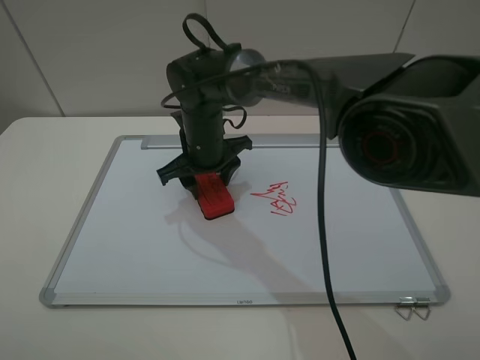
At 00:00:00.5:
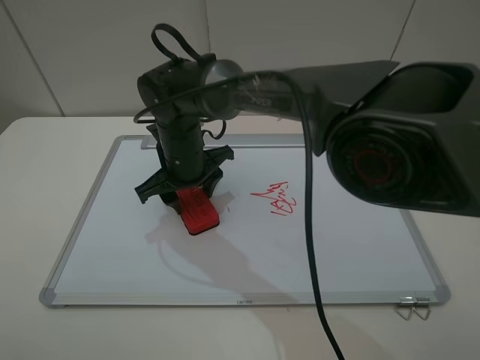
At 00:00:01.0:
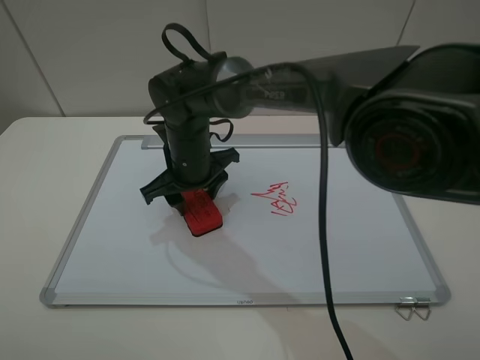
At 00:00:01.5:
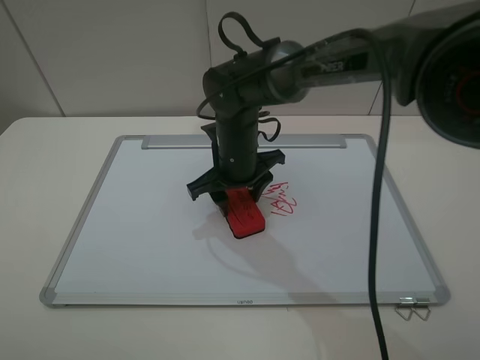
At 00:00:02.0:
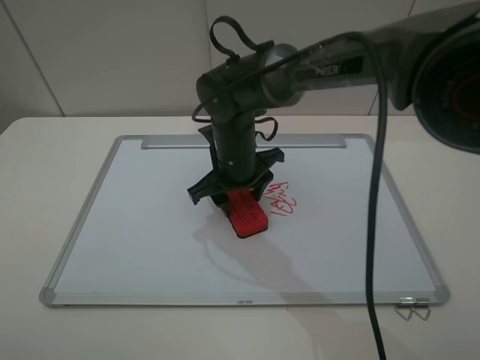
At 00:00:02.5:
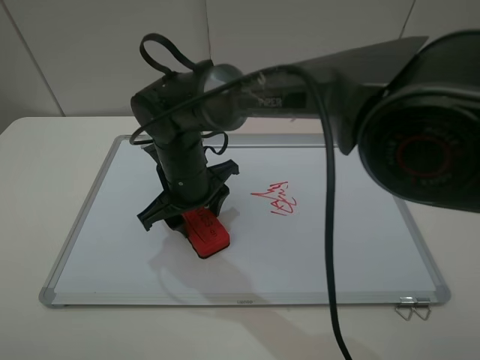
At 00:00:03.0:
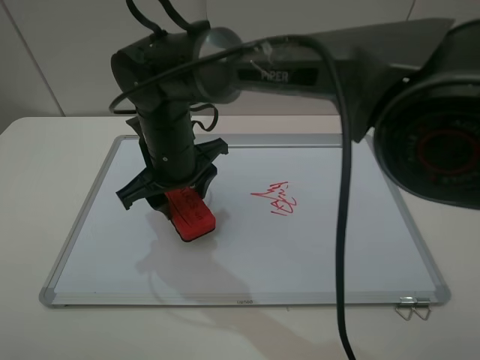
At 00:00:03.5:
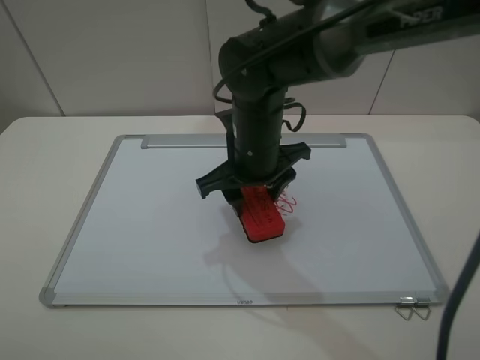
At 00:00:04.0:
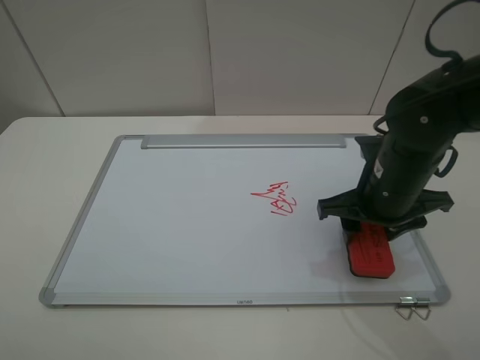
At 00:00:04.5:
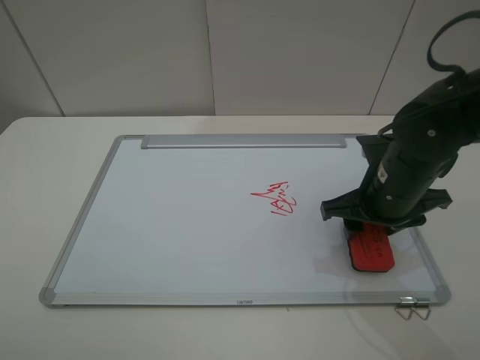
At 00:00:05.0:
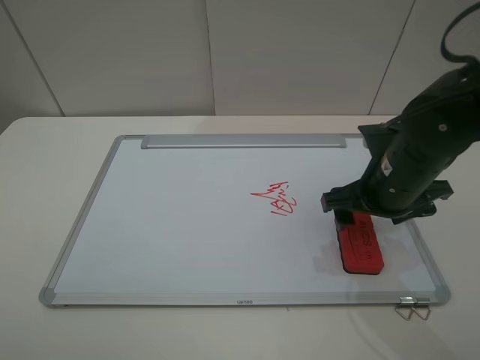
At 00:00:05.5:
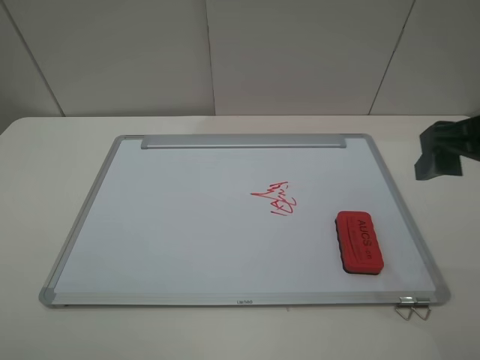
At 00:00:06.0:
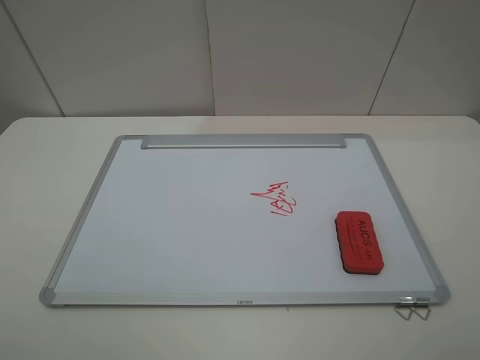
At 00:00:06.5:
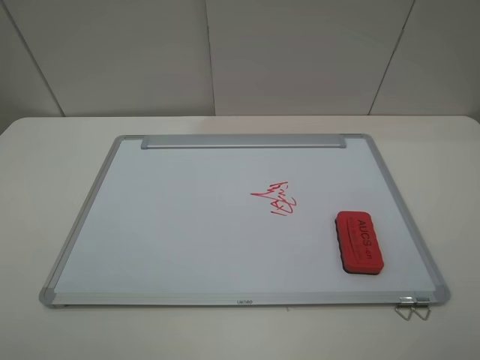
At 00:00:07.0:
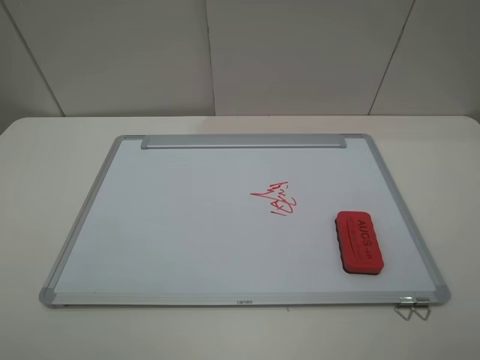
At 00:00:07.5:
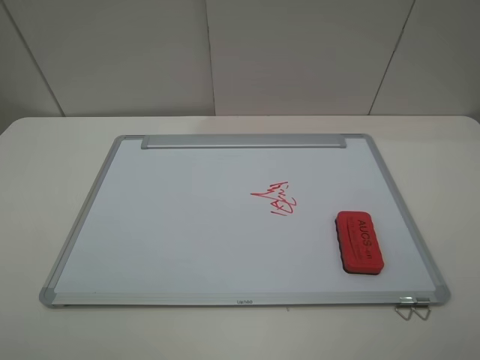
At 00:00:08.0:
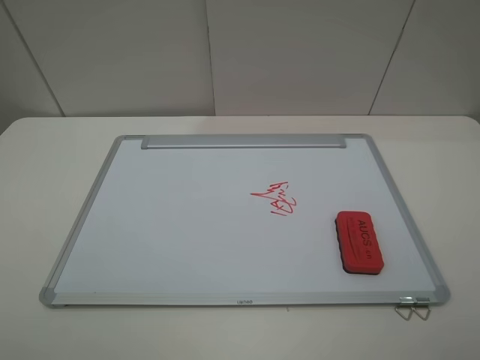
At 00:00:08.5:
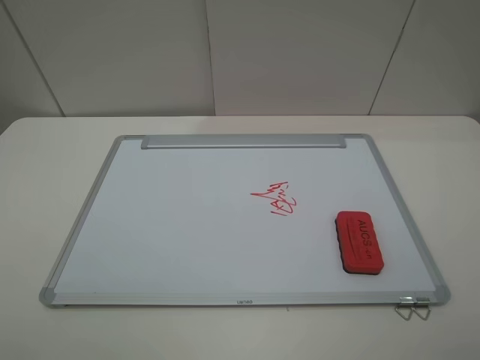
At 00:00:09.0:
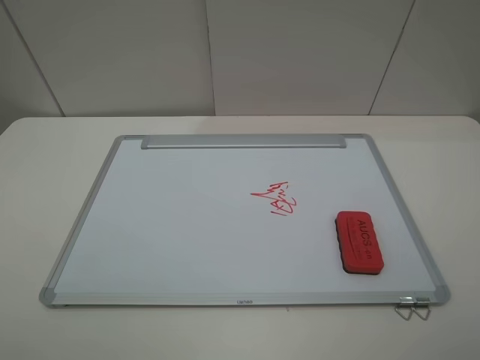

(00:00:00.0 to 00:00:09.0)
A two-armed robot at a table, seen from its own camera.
Step, 00:00:00.0 - 00:00:03.0: Grasp the eraser and wipe the blackboard with the right gripper.
Step, 00:00:03.5 - 00:00:04.5: Place the eraser with the right gripper.
00:00:00.0 - 00:00:02.0: The right gripper heads to the right, covering some 5 cm.
00:00:02.0 - 00:00:04.5: The right gripper moves to the right and backward, about 20 cm.
00:00:04.5 - 00:00:07.0: The right gripper goes about 30 cm backward, upward and to the right, and opens up.

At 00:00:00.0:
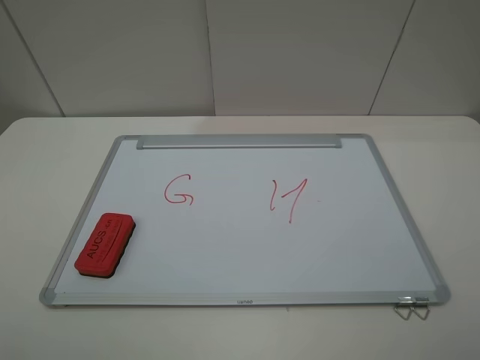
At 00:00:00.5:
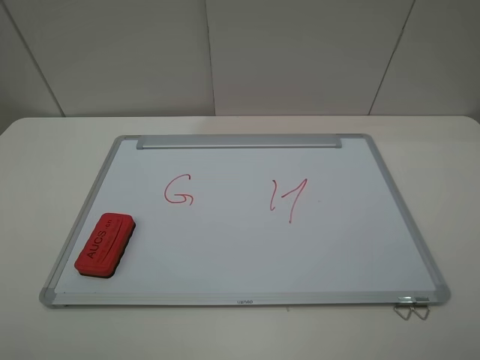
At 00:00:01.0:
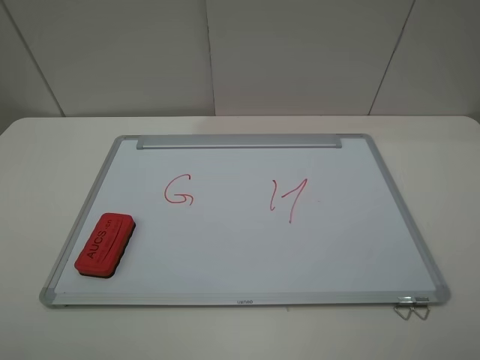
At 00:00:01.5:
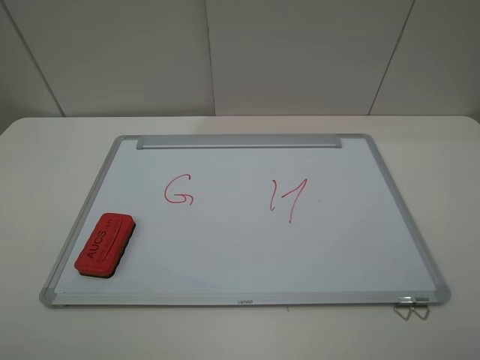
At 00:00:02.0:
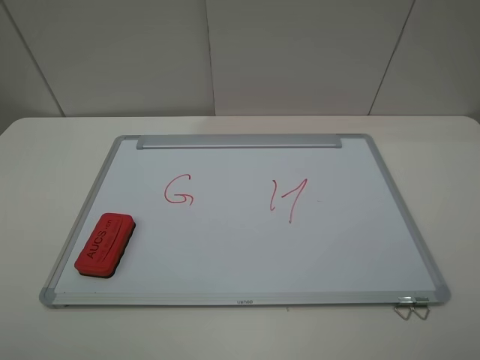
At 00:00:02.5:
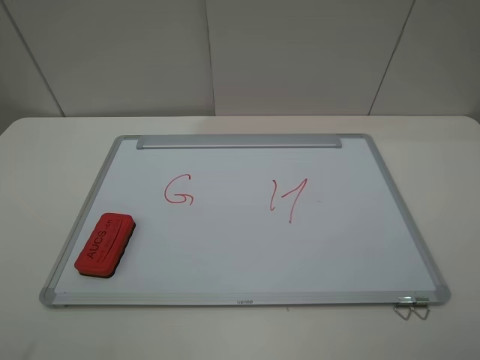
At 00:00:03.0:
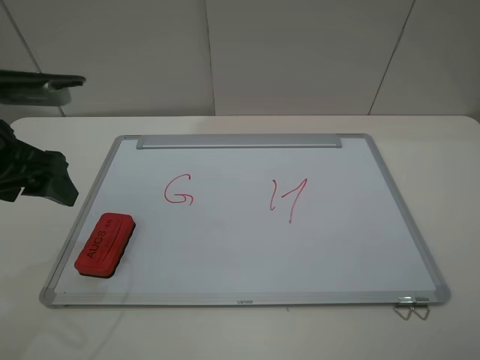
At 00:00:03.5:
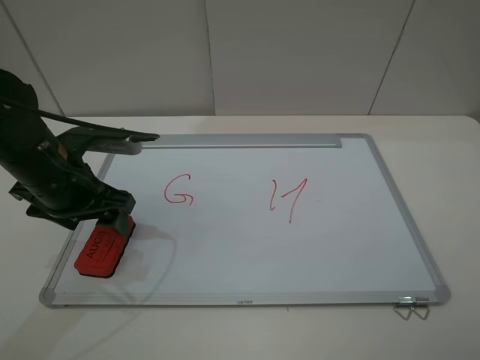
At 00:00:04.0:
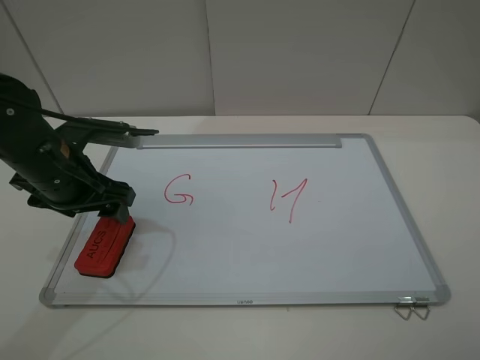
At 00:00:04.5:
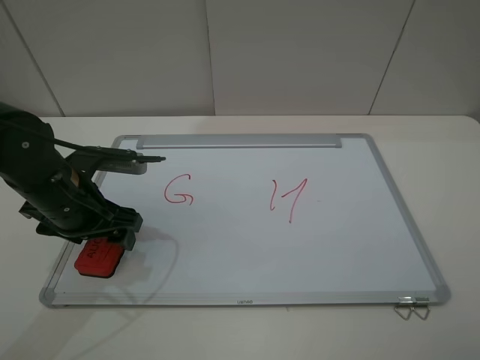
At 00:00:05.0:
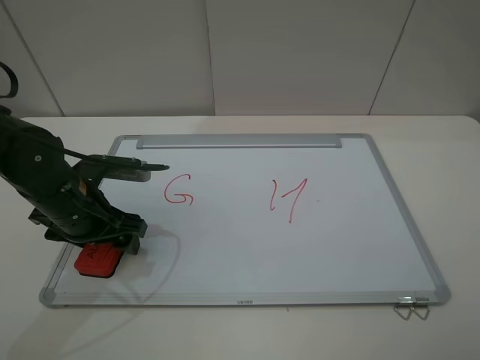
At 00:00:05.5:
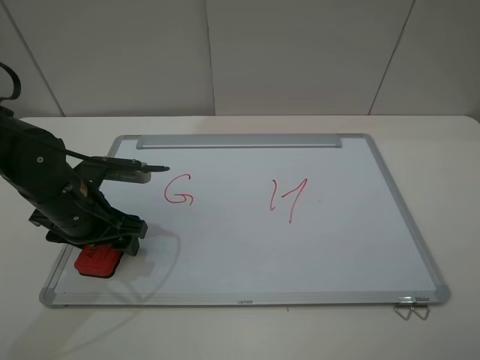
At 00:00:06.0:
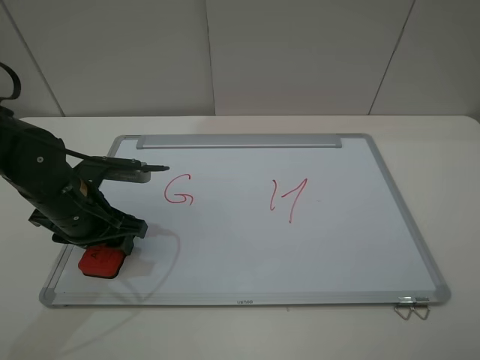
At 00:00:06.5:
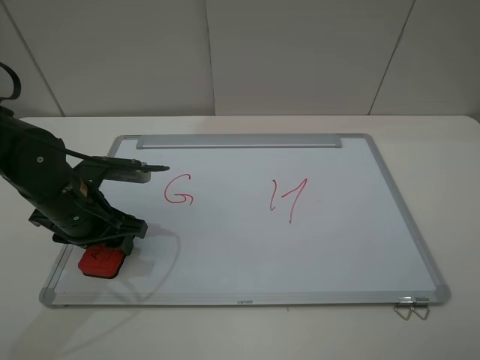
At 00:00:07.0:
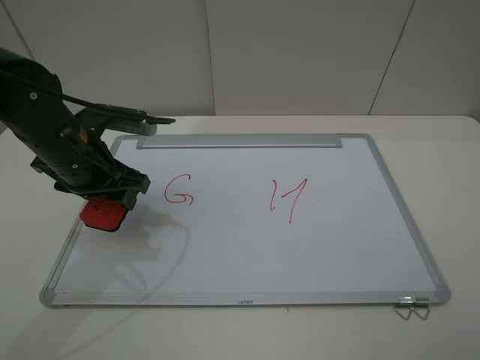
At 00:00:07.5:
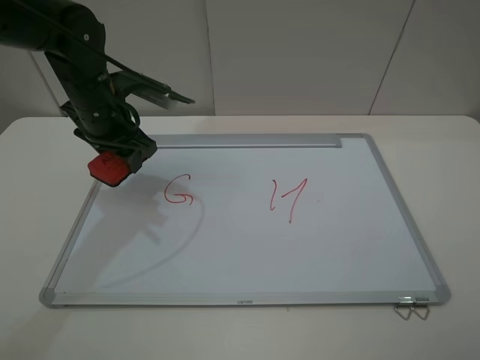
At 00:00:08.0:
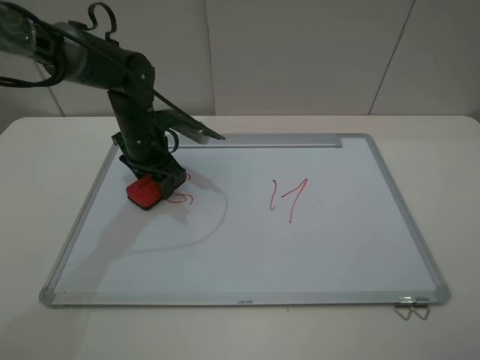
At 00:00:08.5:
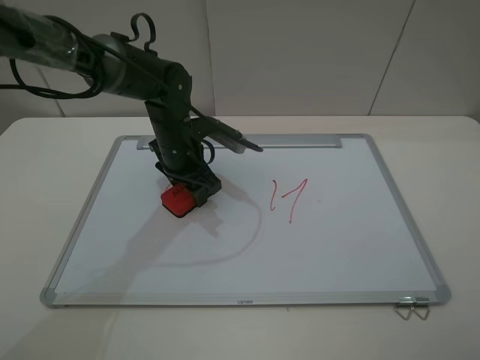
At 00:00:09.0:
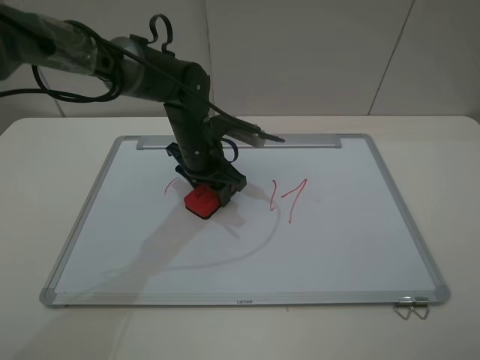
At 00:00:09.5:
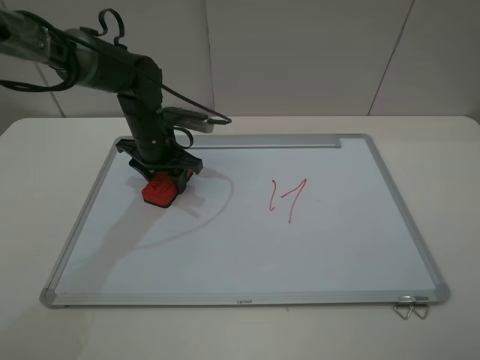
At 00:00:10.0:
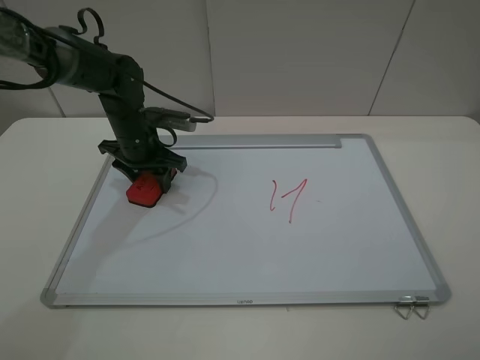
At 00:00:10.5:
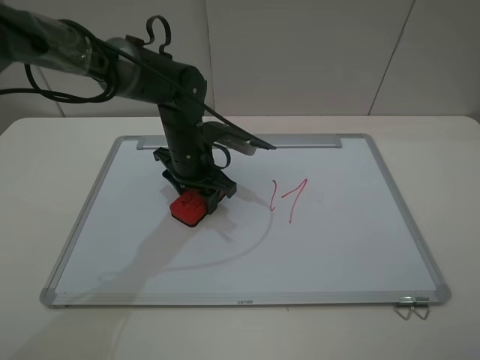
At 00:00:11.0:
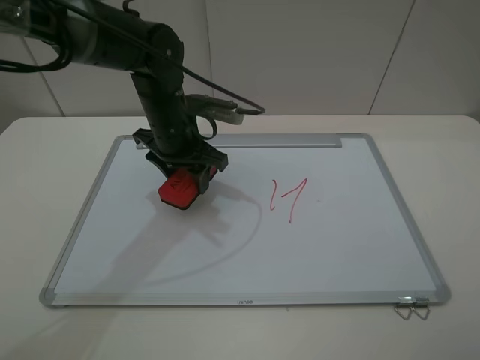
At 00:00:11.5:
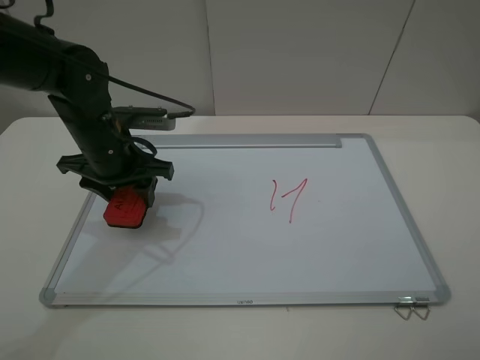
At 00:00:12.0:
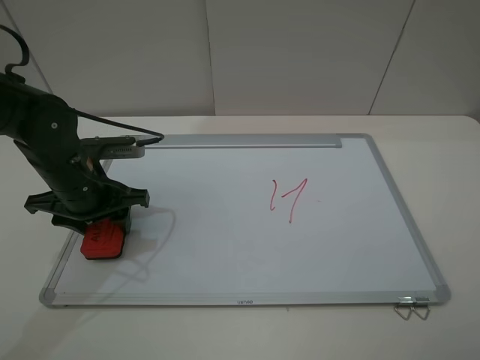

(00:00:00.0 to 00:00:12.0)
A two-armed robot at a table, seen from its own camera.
Step, 00:00:00.0 - 00:00:06.0: Grasp the eraser with the left gripper.
Step, 00:00:06.5 - 00:00:11.0: Grasp the eraser and wipe the blackboard with the left gripper.
00:00:00.0 - 00:00:02.0: Both grippers stay put.
00:00:02.0 - 00:00:04.0: The left gripper moves forward and downward, approximately 30 cm.
00:00:04.0 - 00:00:06.0: The left gripper shifts by some 5 cm, and closes up.
00:00:06.0 - 00:00:08.0: The left gripper is displaced forward and to the right by some 15 cm.
00:00:08.0 - 00:00:10.0: The left gripper reaches roughly 10 cm to the right, then returns.
00:00:10.0 - 00:00:12.0: The left gripper heads backward, covering approximately 10 cm, and moves roughly 10 cm to the right and comes back.

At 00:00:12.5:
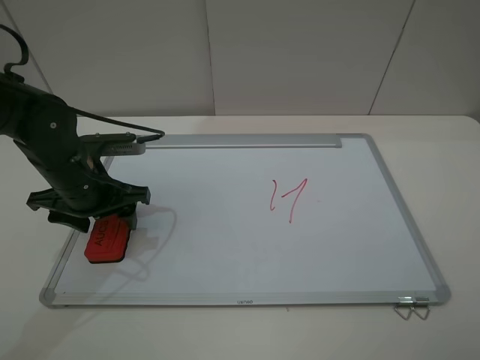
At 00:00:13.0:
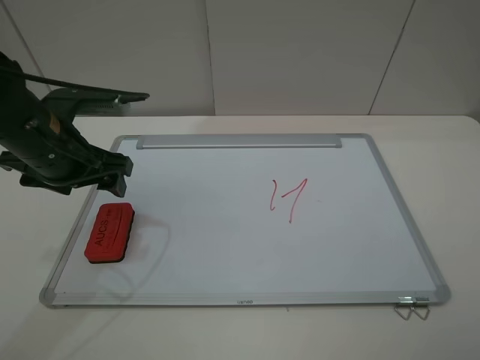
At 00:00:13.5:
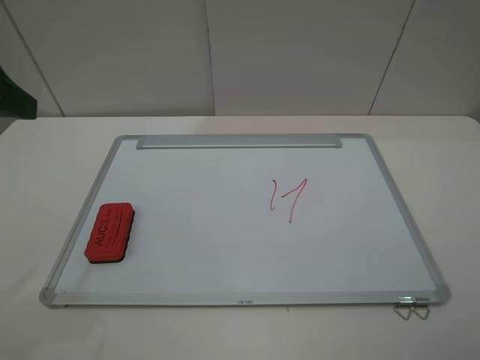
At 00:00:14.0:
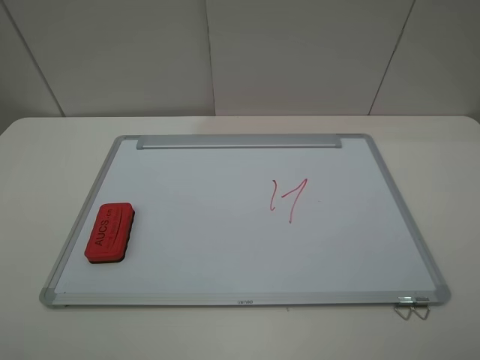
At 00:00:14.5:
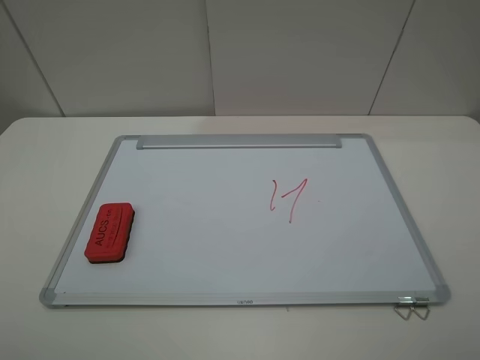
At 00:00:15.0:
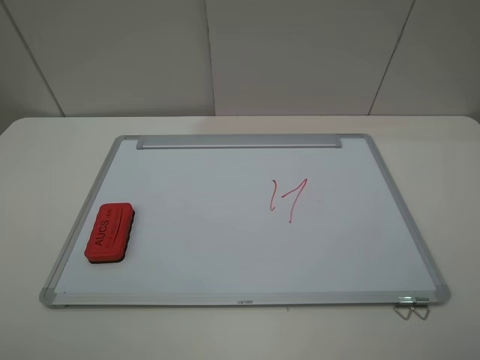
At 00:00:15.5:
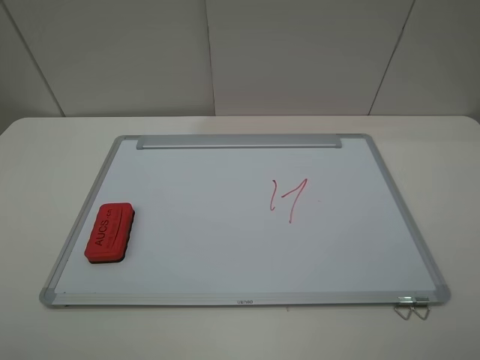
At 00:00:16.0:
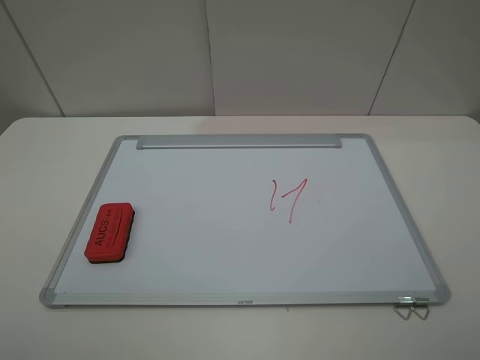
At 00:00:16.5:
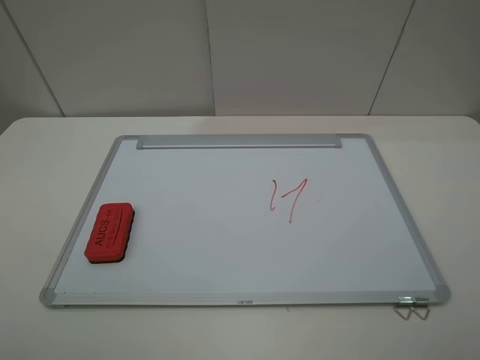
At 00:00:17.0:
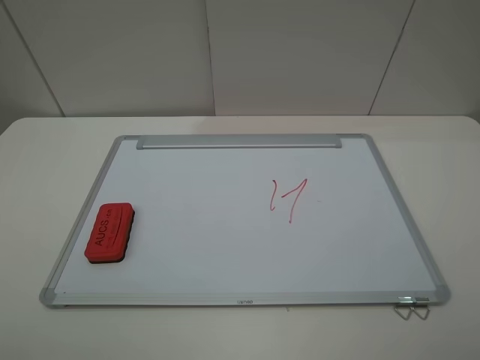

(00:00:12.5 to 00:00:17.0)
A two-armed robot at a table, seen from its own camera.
00:00:12.5 - 00:00:14.5: The left gripper is displaced backward, upward and to the left by some 35 cm.
